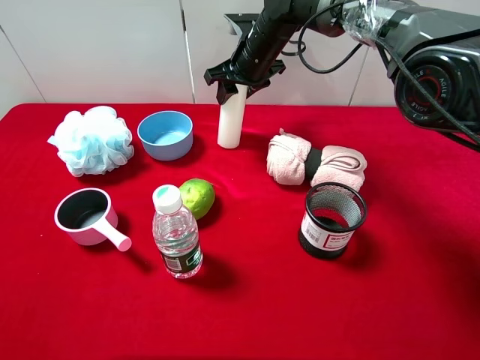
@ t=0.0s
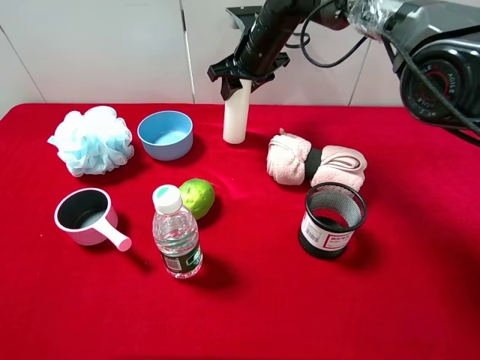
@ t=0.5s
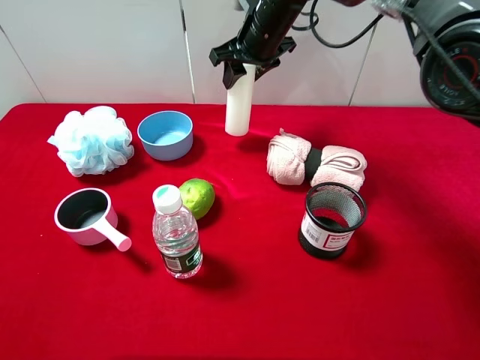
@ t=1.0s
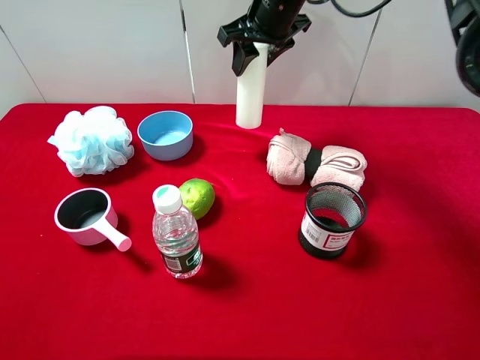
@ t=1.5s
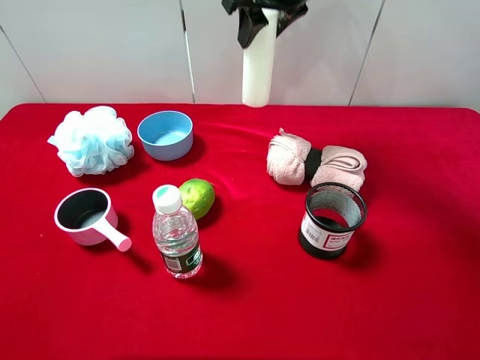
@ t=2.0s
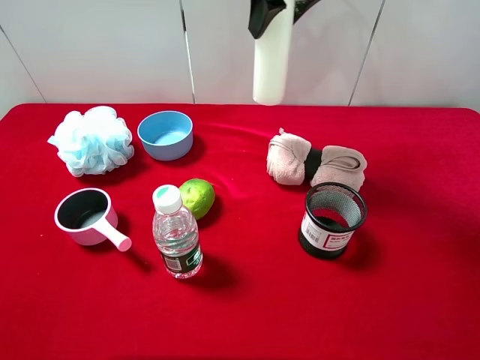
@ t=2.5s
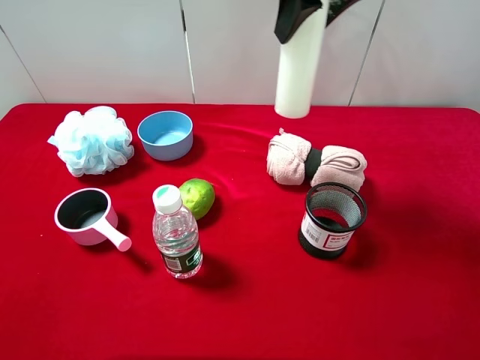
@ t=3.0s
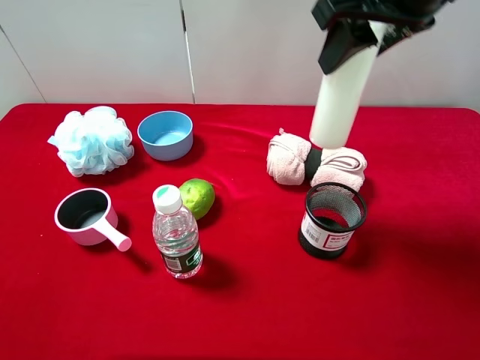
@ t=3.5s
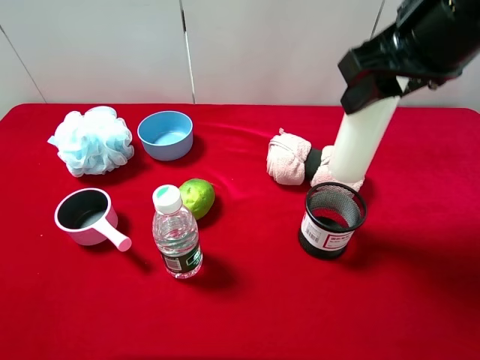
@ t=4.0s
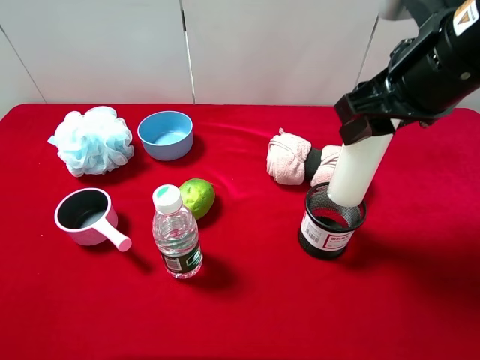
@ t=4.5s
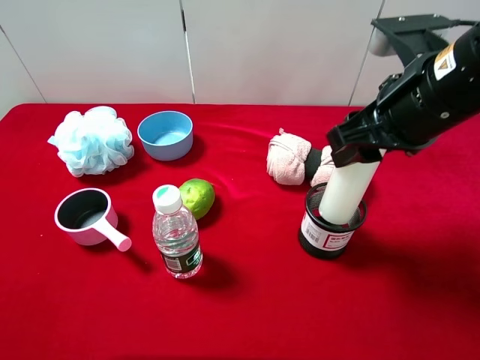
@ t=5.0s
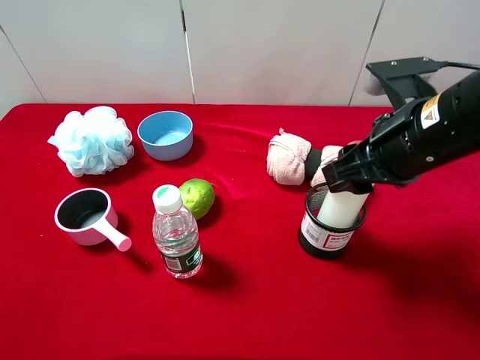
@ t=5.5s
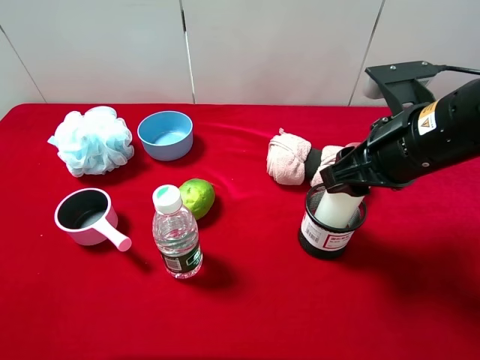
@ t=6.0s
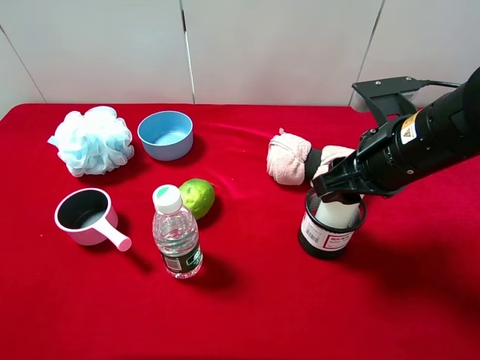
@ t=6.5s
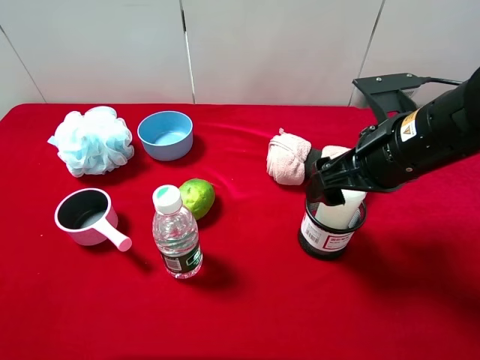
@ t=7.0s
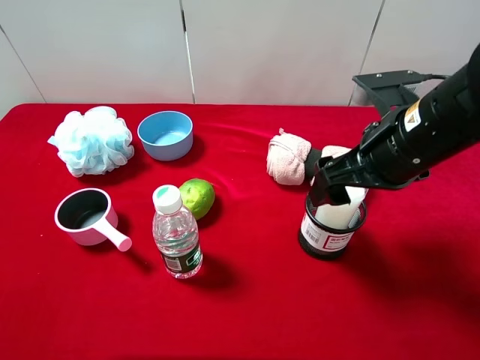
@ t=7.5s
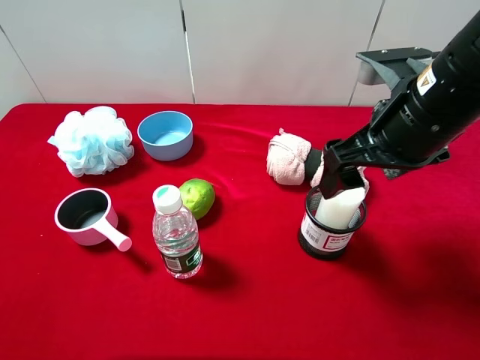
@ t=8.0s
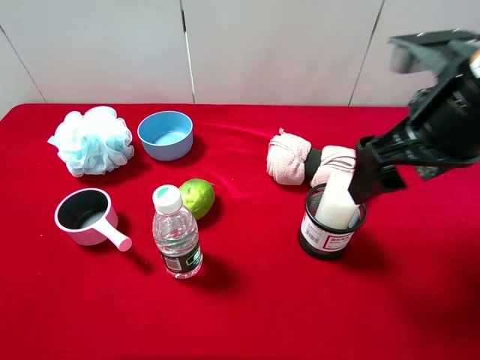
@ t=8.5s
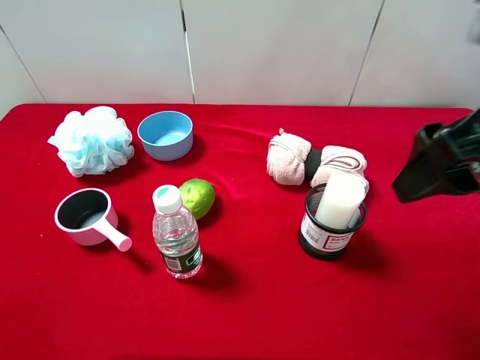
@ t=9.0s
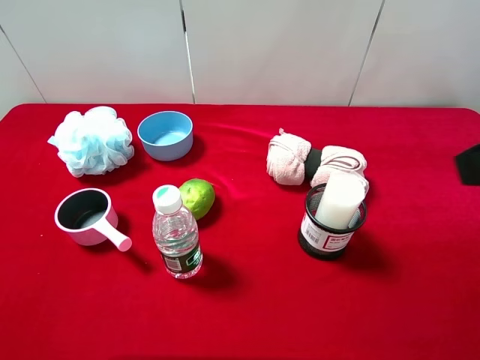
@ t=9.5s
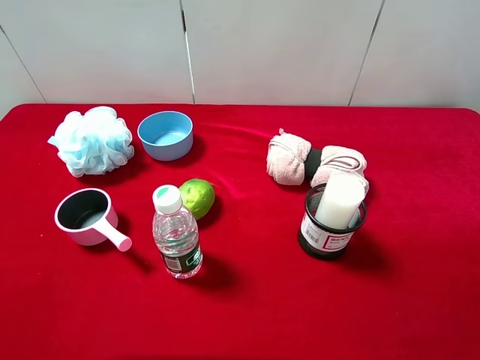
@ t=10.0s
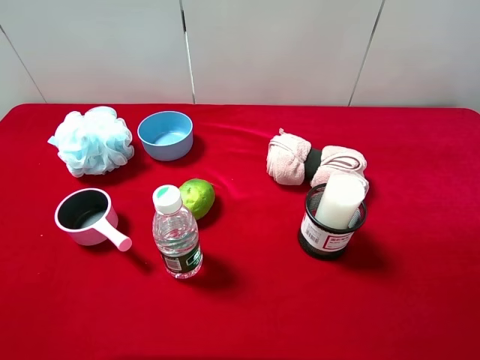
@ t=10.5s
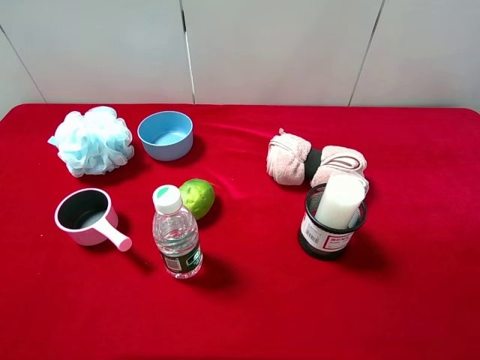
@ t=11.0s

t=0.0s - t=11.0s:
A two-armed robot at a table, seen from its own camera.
Task of the whole recording: pick up an item with a gripper and place it in a random container on the desktop.
t=0.0s - t=2.0s: The right gripper moves upward, approximately 15 cm.
t=2.0s - t=3.5s: The right gripper goes approximately 20 cm backward and to the right.
t=3.5s - t=5.5s: The right gripper moves downward and backward, about 15 cm.
t=5.5s - t=7.5s: The right gripper opens.
t=7.5s - t=9.0s: The right gripper moves upward and backward, approximately 10 cm.
t=9.0s - t=11.0s: The right gripper is displaced backward and to the right by about 15 cm.

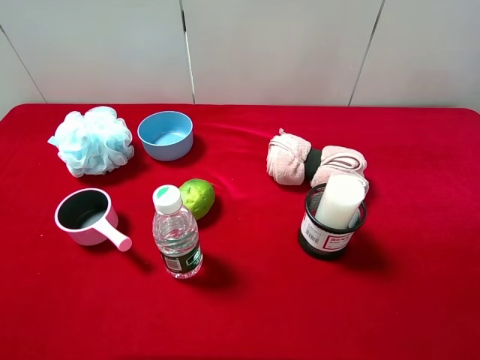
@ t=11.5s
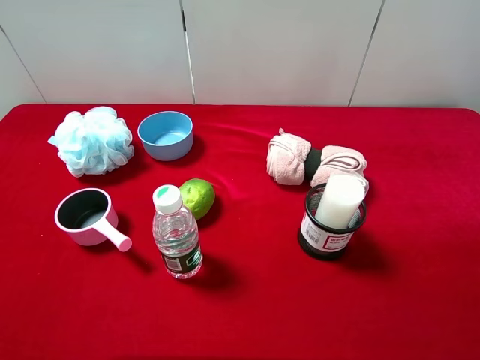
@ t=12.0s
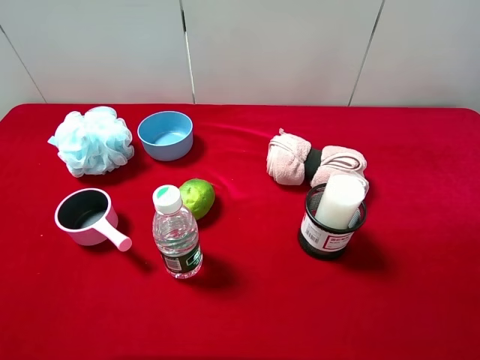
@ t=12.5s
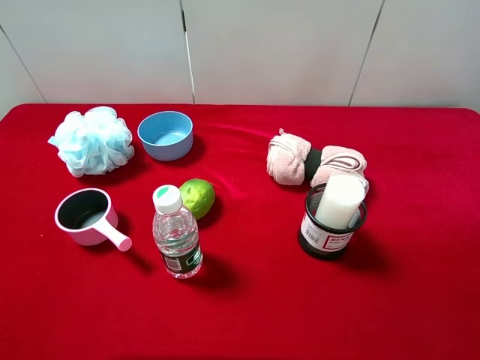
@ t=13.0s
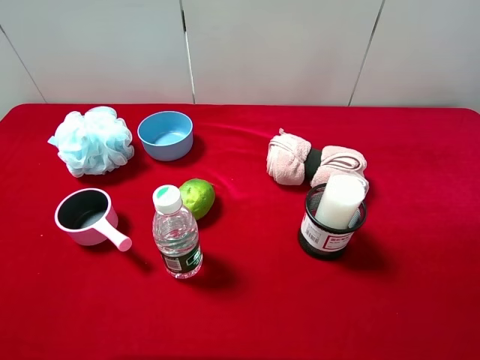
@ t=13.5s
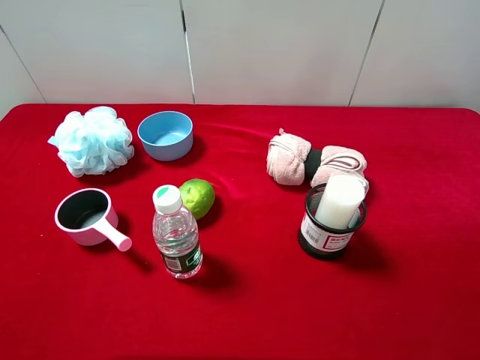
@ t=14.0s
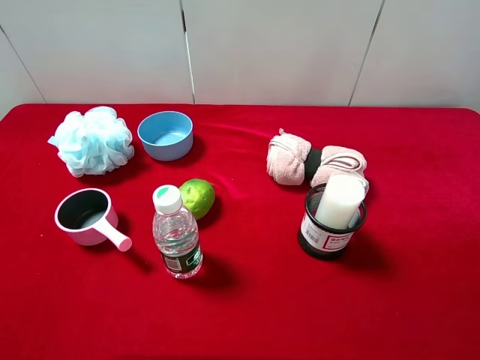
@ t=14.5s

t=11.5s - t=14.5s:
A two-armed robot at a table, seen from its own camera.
Task of the whole recording: pick up an item with a gripper and place it in a random container on the desktop.
t=13.0s - t=14.5s: The two grippers keep their place.
